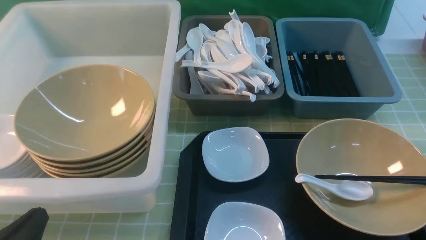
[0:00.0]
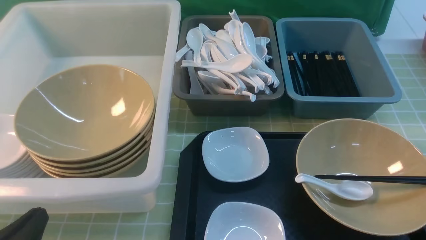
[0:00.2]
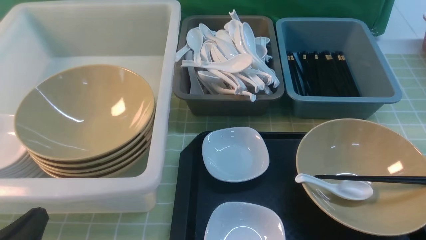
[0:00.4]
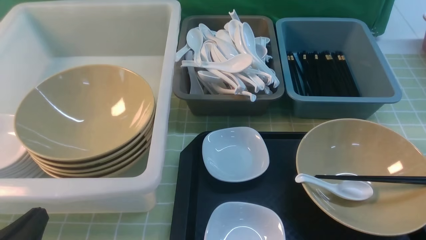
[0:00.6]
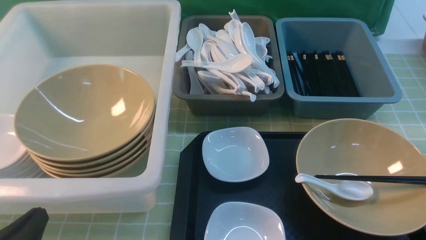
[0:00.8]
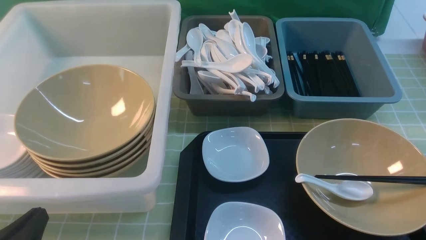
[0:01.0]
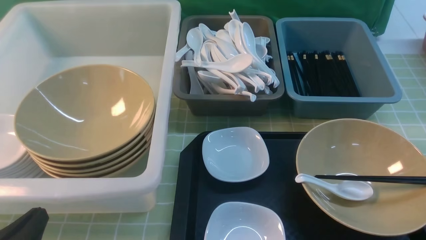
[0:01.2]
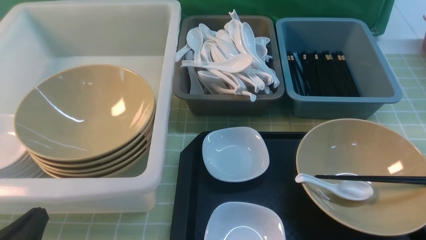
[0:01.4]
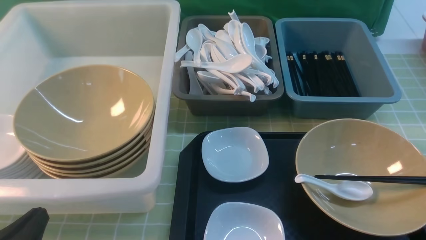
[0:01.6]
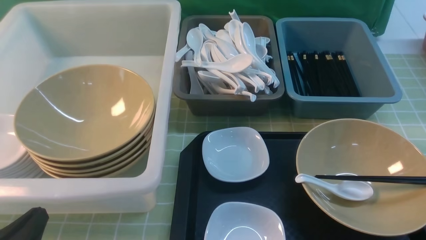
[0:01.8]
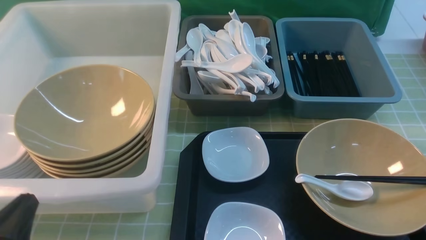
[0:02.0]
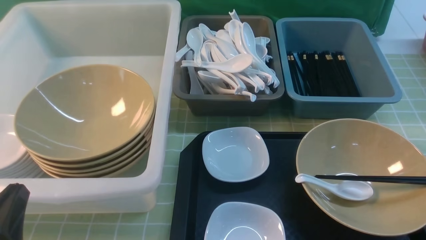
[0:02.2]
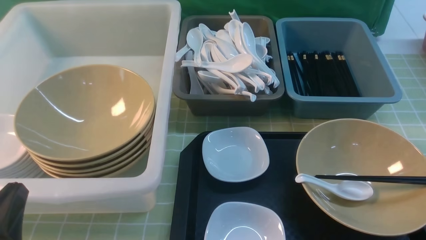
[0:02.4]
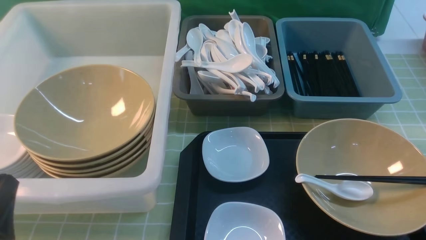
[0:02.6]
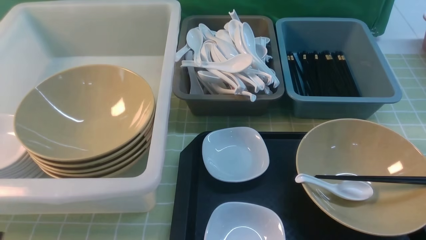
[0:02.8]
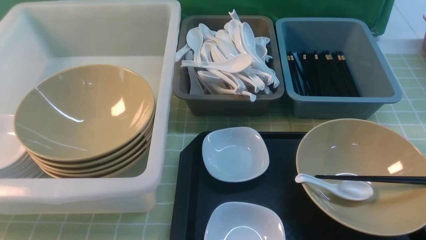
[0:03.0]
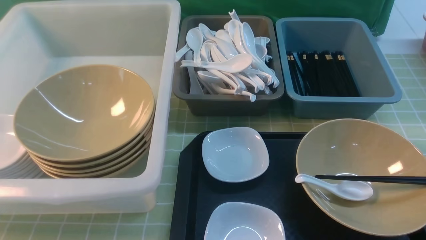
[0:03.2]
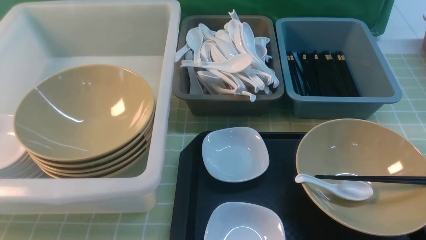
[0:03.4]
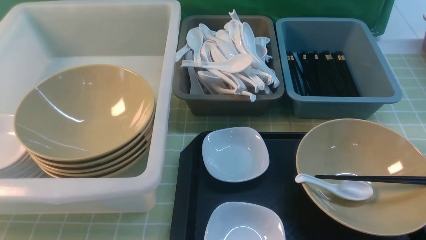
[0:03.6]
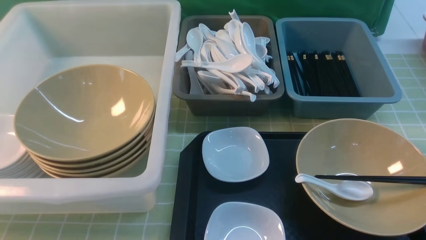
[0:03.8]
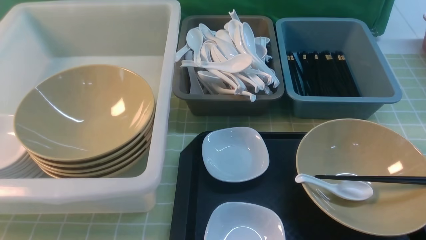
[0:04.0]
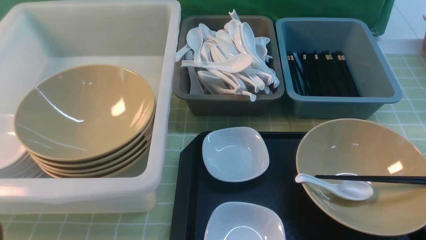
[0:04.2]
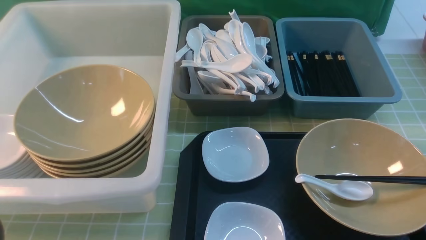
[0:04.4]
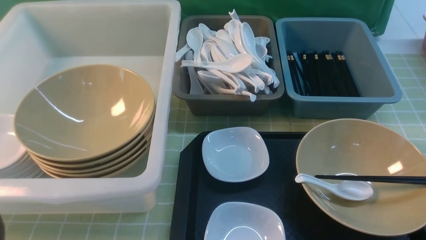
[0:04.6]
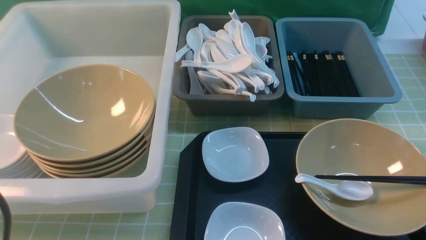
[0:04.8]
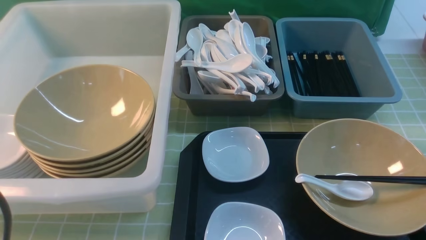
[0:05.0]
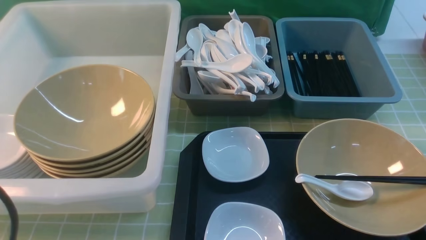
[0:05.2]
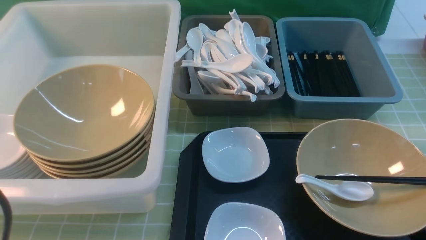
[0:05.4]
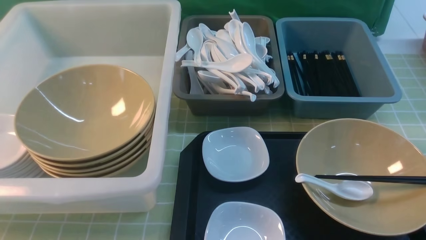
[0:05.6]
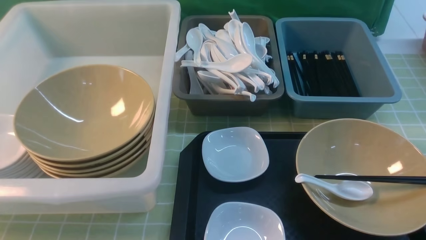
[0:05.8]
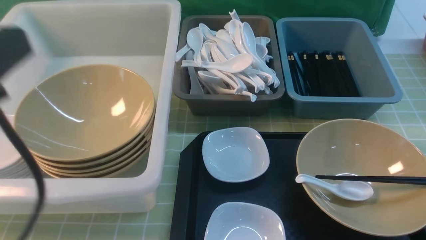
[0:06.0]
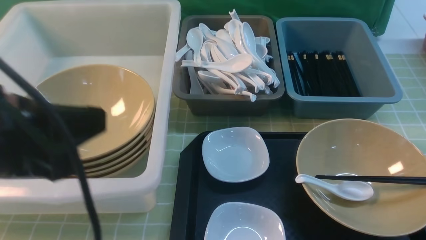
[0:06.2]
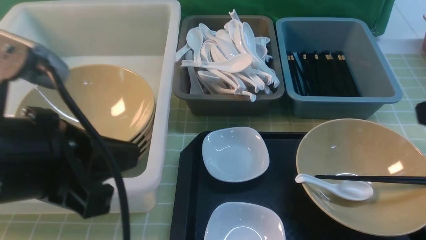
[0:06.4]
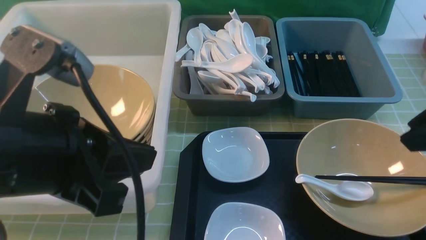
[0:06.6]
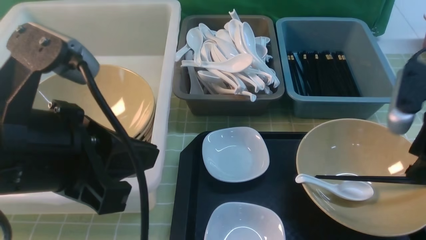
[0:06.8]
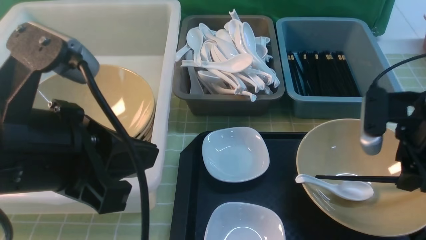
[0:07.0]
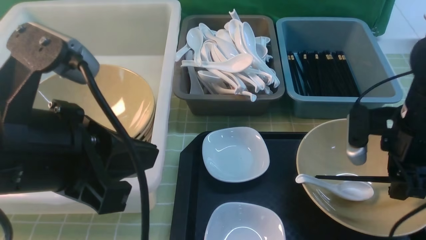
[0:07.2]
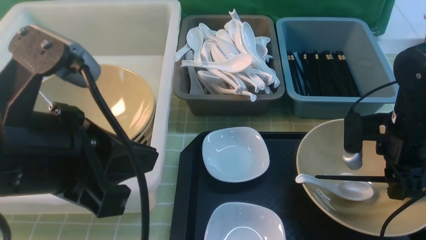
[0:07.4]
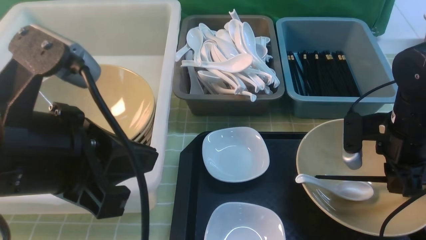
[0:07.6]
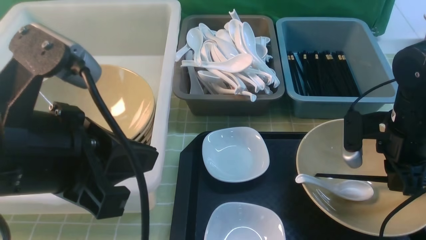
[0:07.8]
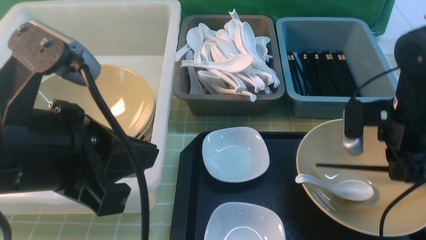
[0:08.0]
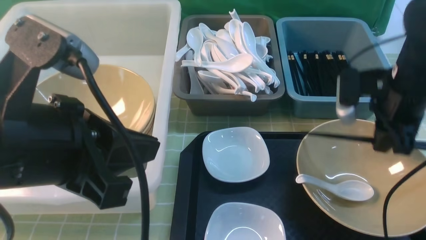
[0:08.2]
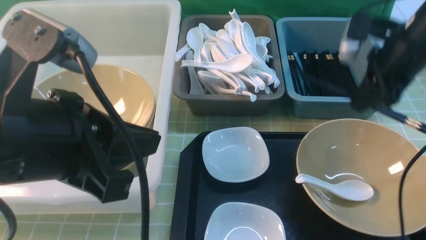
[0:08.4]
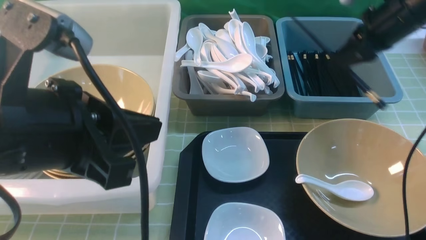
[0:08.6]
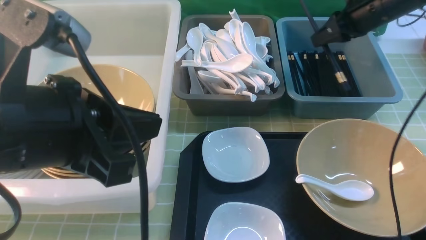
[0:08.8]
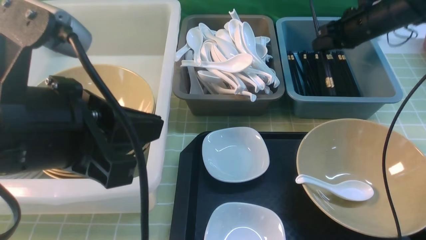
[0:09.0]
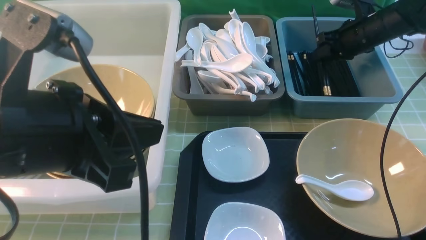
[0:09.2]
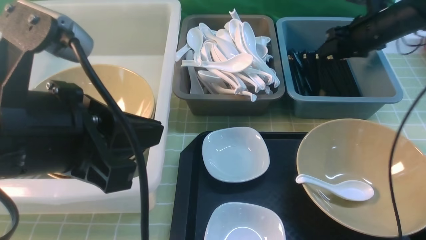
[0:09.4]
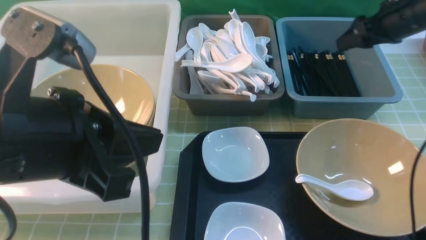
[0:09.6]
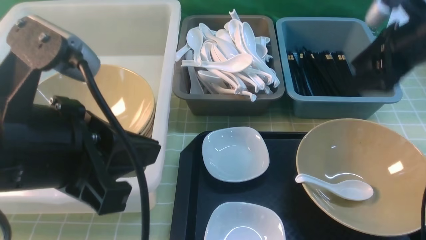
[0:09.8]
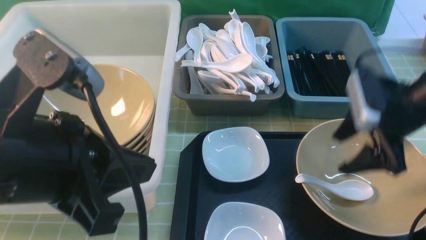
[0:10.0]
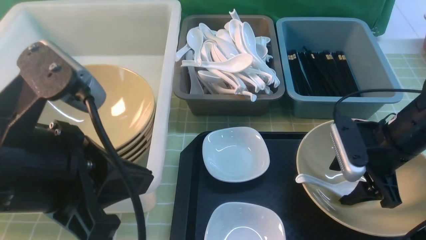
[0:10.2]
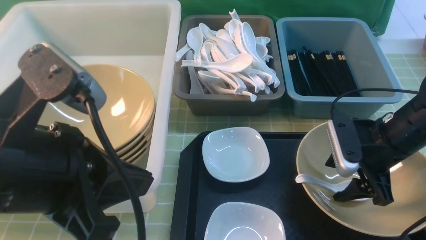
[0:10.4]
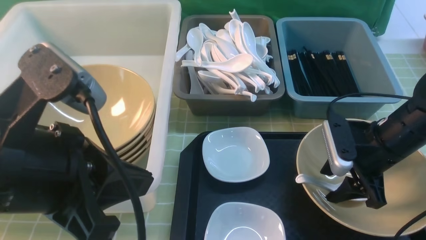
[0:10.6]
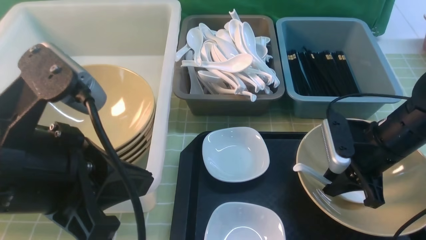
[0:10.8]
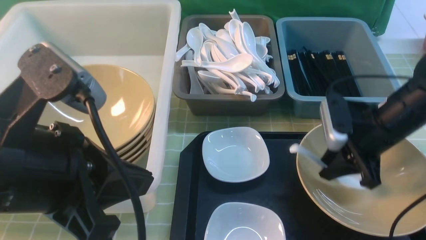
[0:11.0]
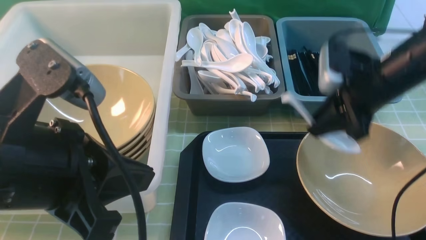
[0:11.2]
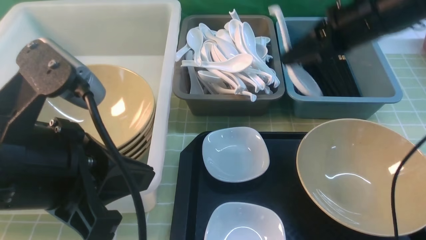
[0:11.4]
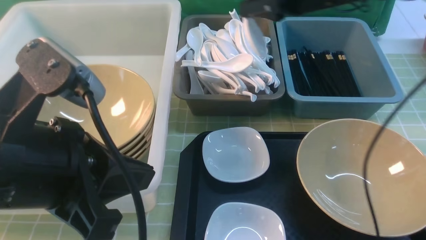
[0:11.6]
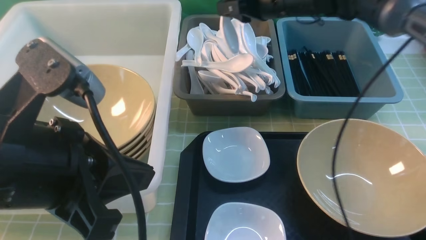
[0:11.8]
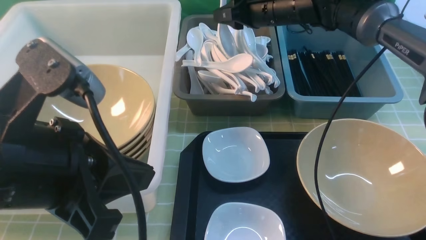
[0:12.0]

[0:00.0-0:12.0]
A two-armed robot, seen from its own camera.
Task of the whole recording: on green table put chopsticks spoon bowls plates into blue grey white boxes.
Step, 0:00.0 to 0:08.2: use the right arm to grab the chopsticks.
Step, 0:08.4 to 0:09.6: use the right arm to put the chopsticks into the small storage box on the right.
Step, 0:09.8 to 0:11.2: use the right arm to grab the soup spoon in the middle.
0:00.0 to 0:01.6: The two grippers keep their place.
0:01.6 to 0:03.0: The left gripper heads upward, covering approximately 5 cm.
0:04.4 to 0:06.0: The left gripper changes place by approximately 5 cm.
0:06.0 to 0:07.6: The right gripper shifts about 25 cm forward and downward; the left gripper is displaced to the right by approximately 5 cm.
0:07.6 to 0:09.0: The right gripper goes roughly 20 cm forward.
0:09.0 to 0:10.4: The right gripper travels backward by approximately 20 cm, and opens its fingers.
0:10.4 to 0:12.0: The right gripper travels forward, to the left and upward by approximately 25 cm, and closes.

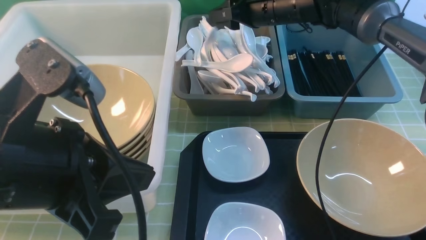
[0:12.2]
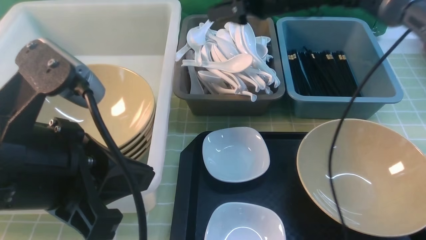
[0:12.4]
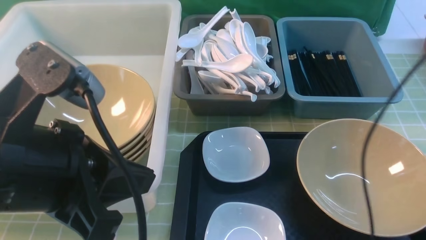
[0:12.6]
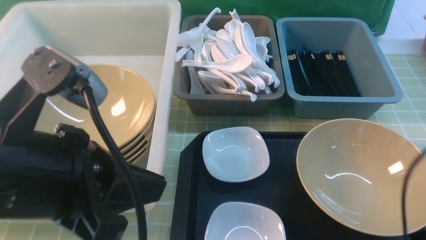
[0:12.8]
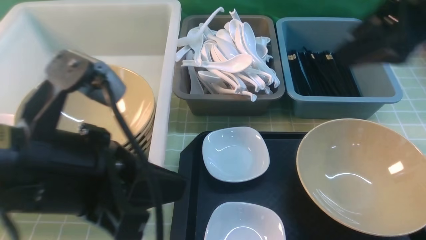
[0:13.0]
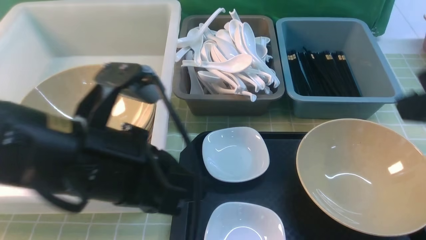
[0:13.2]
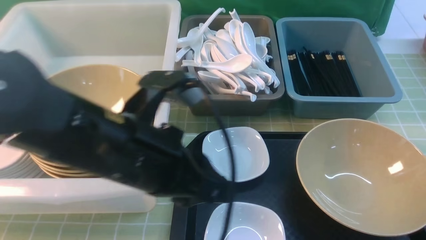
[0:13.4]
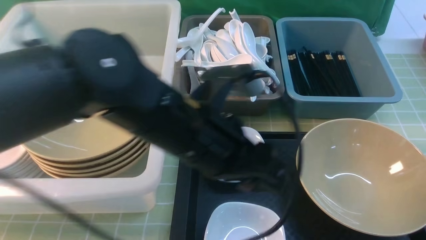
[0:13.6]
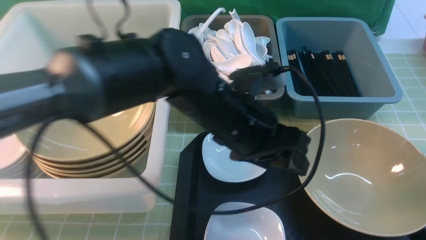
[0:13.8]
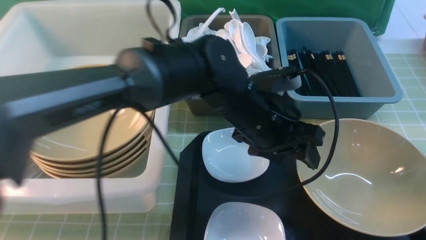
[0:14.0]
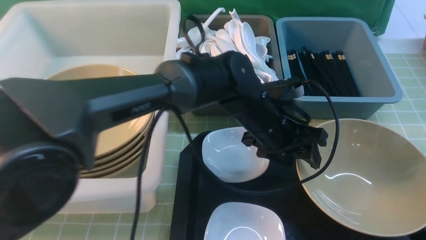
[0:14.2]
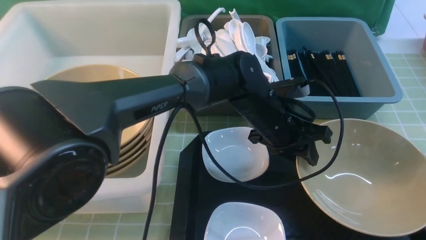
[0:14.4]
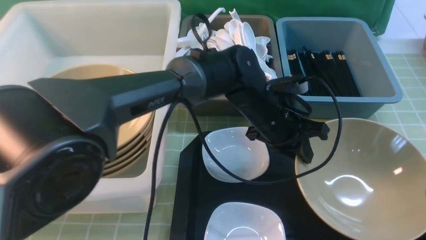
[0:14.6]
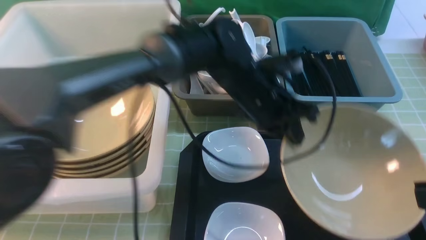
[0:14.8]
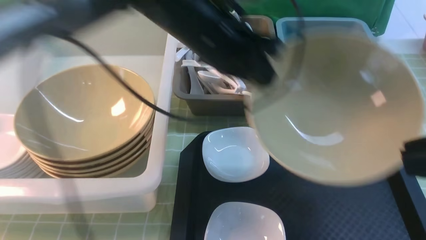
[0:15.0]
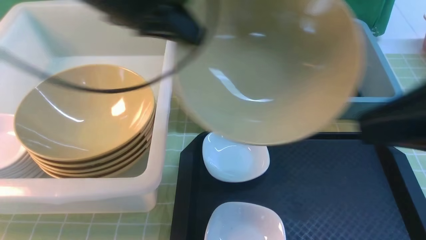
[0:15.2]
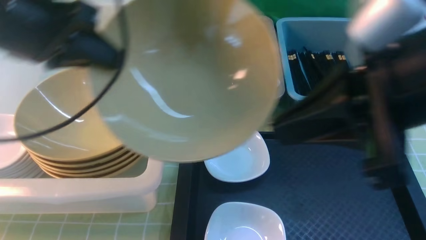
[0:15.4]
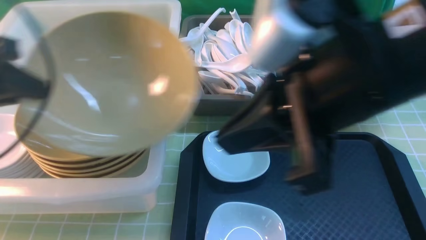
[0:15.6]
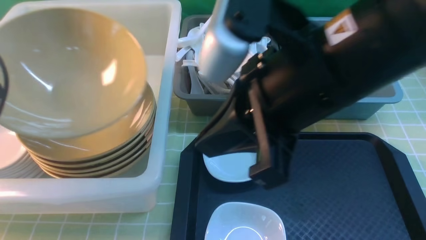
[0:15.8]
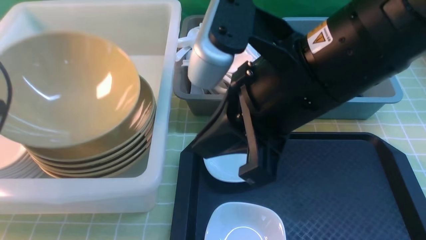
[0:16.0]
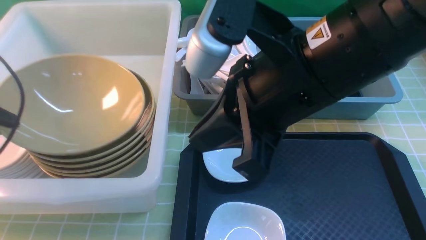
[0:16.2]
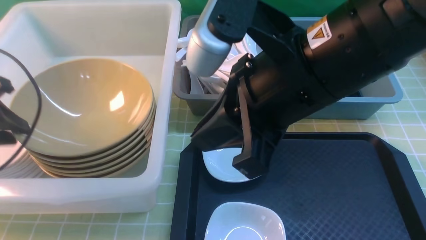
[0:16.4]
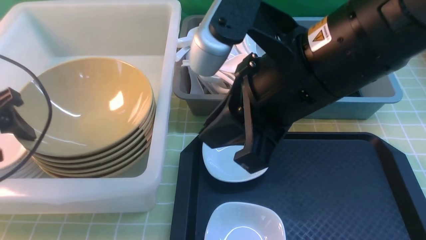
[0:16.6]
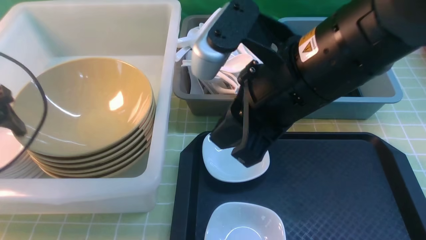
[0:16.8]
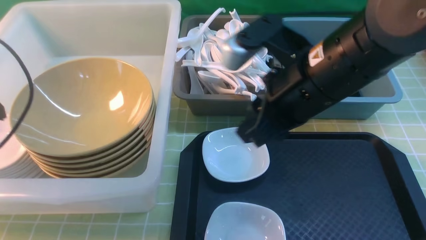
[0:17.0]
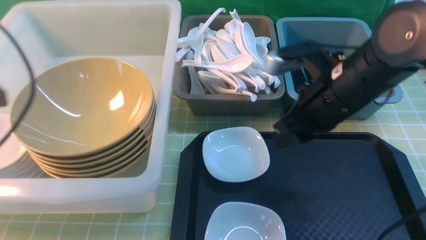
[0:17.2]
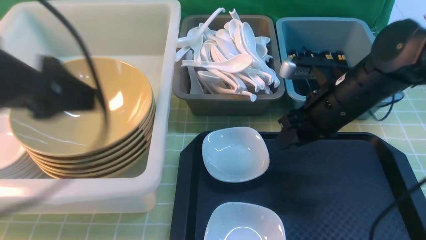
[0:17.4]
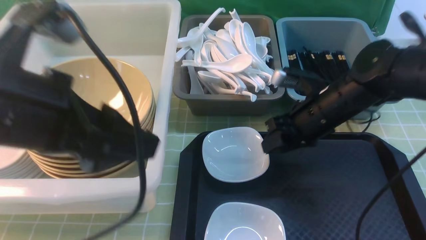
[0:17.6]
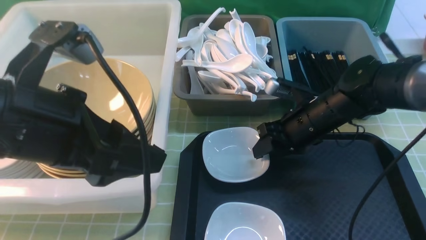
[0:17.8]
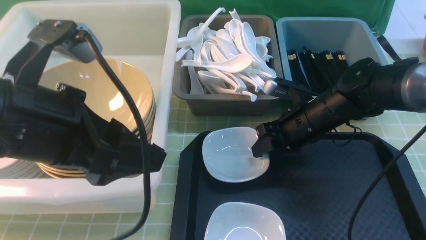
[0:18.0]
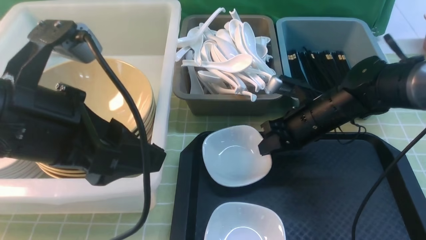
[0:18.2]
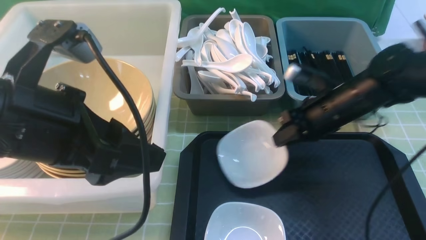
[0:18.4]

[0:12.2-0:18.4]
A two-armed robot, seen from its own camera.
Task of the whole recording: on green table put chopsticks spoon bowls plates into blue grey white boxes.
Step, 0:13.2 to 0:14.8: use the left arm to grab the yellow noodle bowl on the left.
Step, 0:15.0 to 0:17.0: use the left arm to put the noodle bowl into the large storage box on the left.
Step, 0:17.2 to 0:18.4: use the right arm to grab the plate.
0:12.2 to 0:13.8: The left gripper travels to the right, forward and downward by roughly 25 cm, and opens its fingers; the right gripper moves backward, about 40 cm.
0:13.8 to 0:15.4: The left gripper moves to the left and upward, some 25 cm, and closes its fingers. Meanwhile the right gripper travels to the left, forward and upward by roughly 15 cm, and closes up.
0:15.4 to 0:16.8: The left gripper moves to the left and downward, some 10 cm, and opens its fingers. The right gripper travels forward, to the left and downward by some 10 cm.
0:16.8 to 0:18.4: The left gripper shifts some 20 cm to the right and backward. Meanwhile the right gripper travels downward, to the right and forward by roughly 25 cm.
